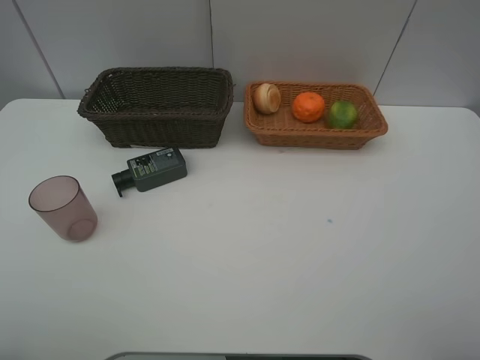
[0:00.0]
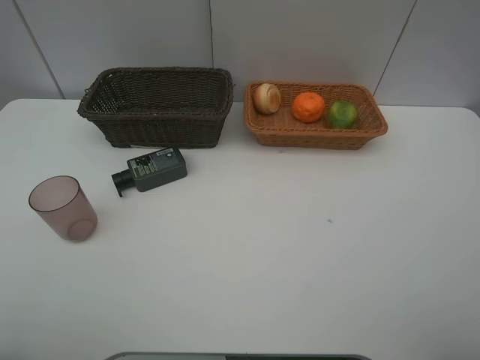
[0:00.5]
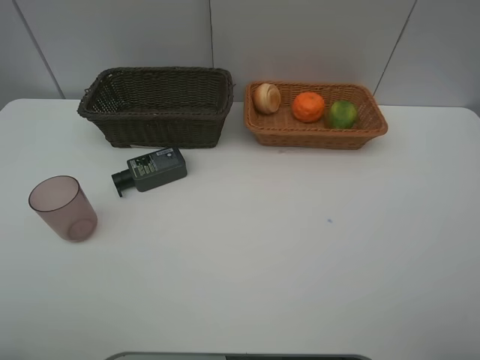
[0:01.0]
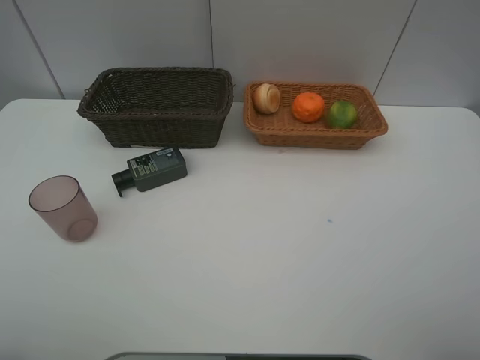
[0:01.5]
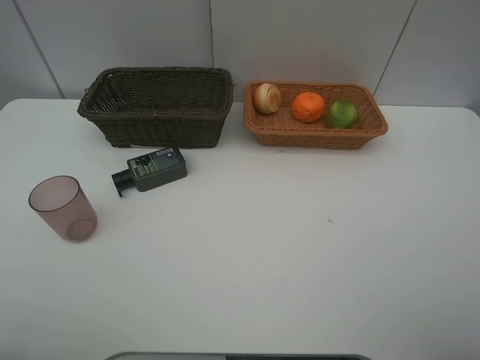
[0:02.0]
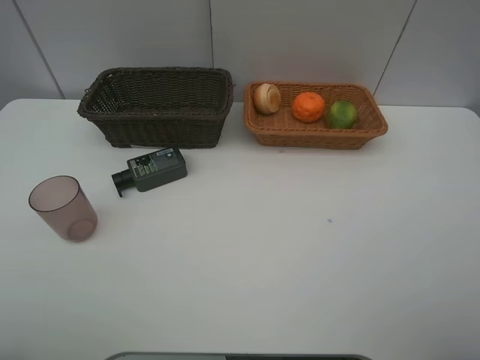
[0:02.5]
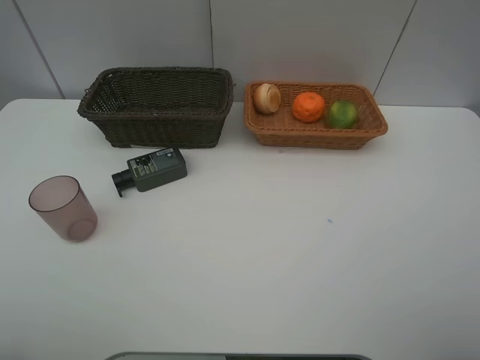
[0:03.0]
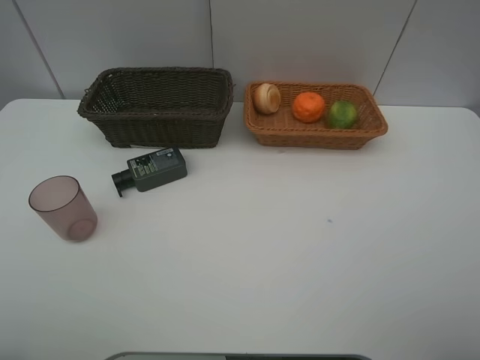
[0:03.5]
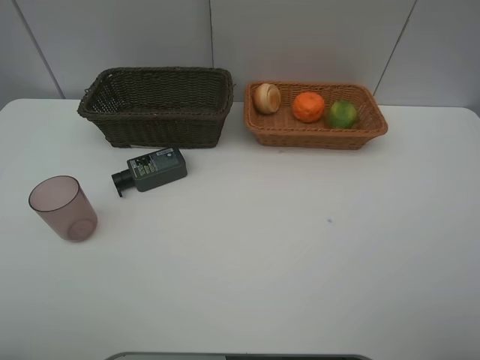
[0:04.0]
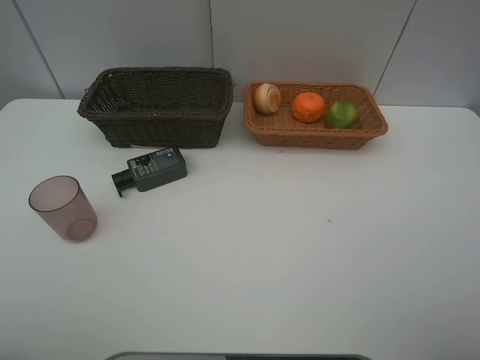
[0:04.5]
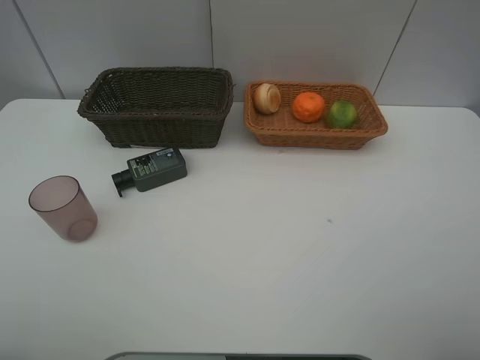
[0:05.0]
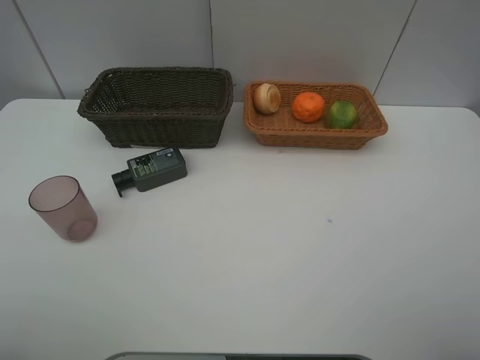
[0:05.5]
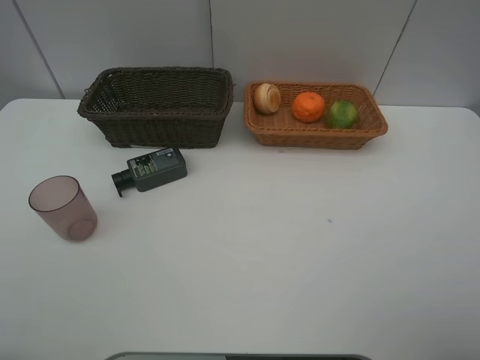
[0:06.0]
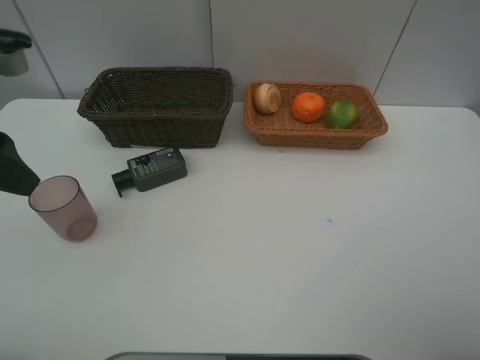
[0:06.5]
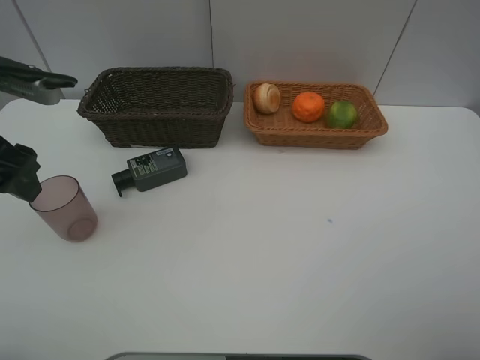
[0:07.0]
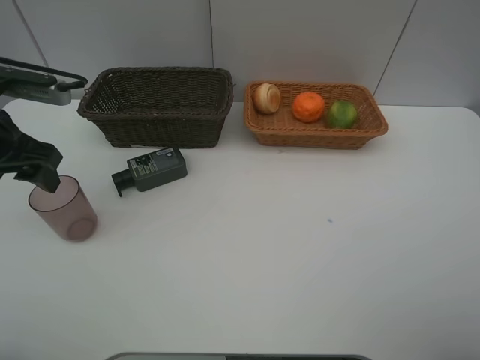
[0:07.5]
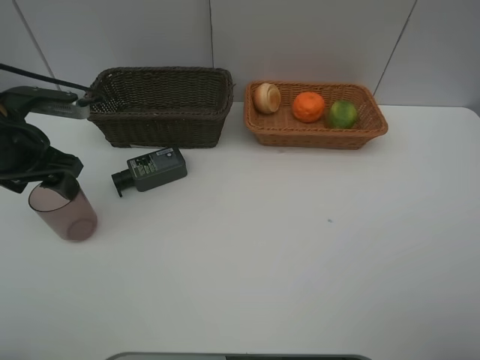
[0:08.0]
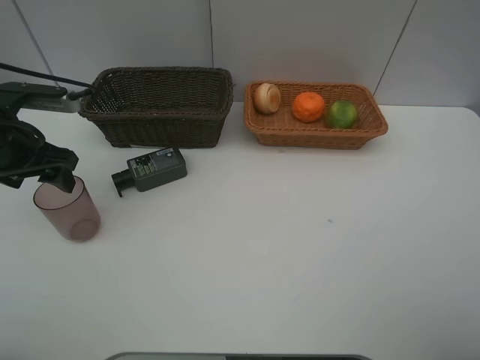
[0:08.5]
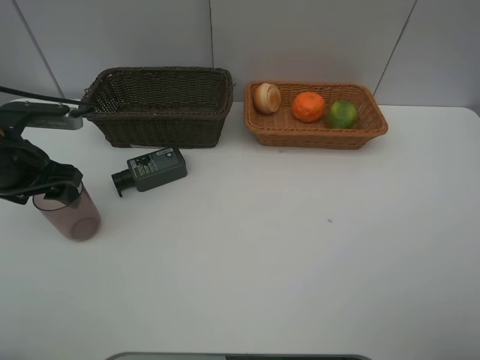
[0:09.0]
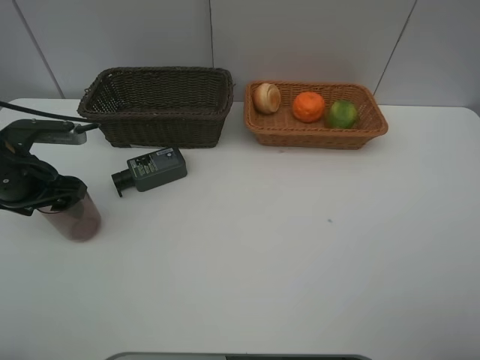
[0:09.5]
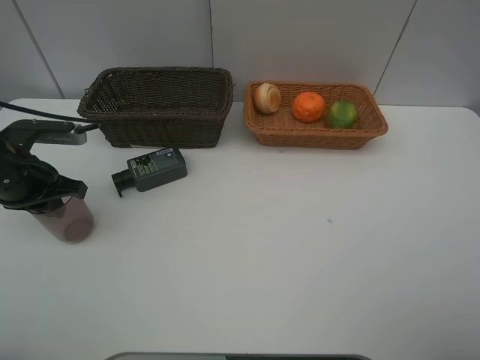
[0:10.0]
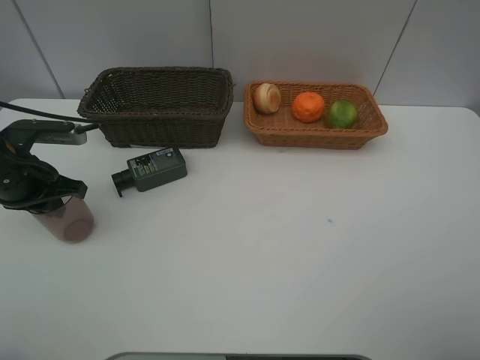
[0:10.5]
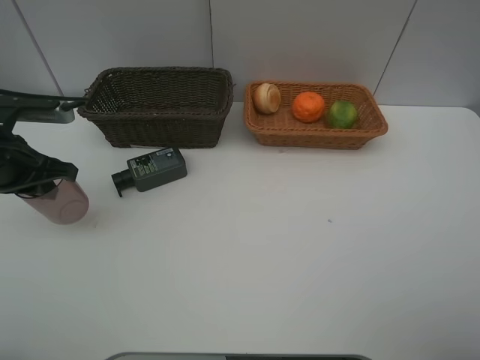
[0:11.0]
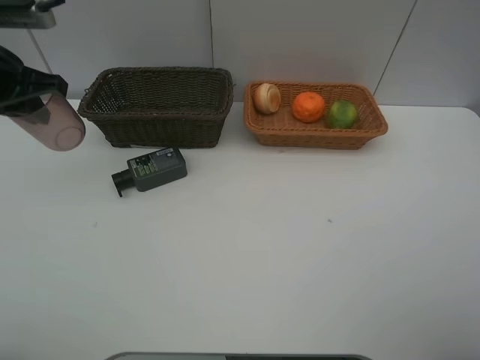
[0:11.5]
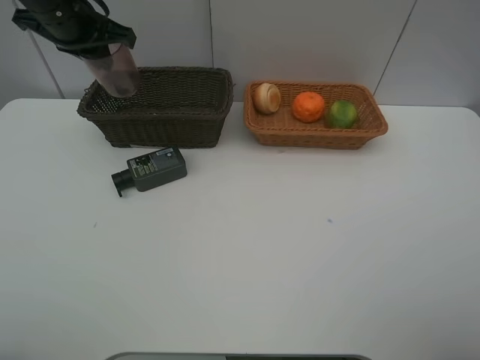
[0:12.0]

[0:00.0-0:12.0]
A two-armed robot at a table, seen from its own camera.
Task of the whole recording: place multiple objects separately in different baskets.
0:06.0 to 0:08.0: The left gripper goes roughly 20 cm forward and downward.
0:08.0 to 0:10.0: The left gripper moves downward, roughly 5 cm, and closes up.
0:10.0 to 0:12.0: The left gripper moves forward, upward and to the right, about 20 cm.

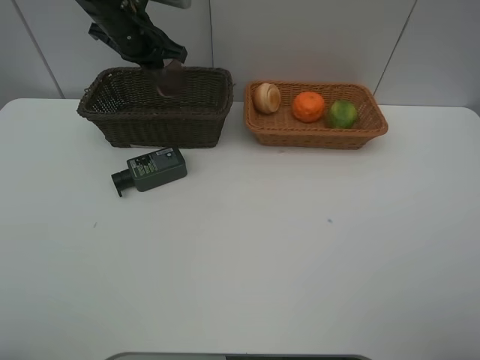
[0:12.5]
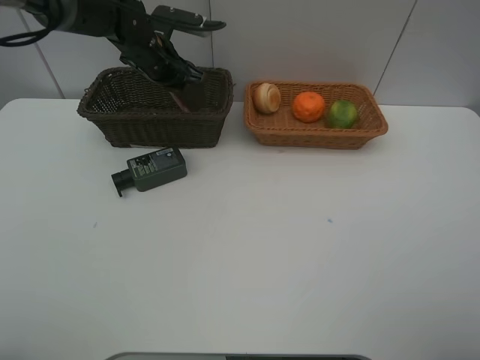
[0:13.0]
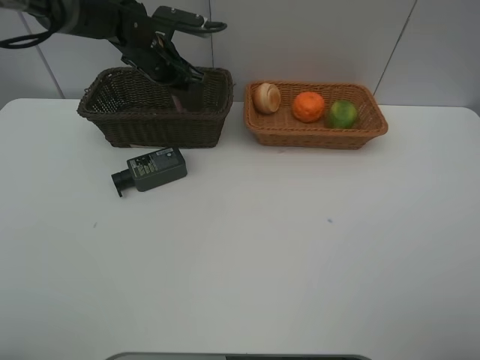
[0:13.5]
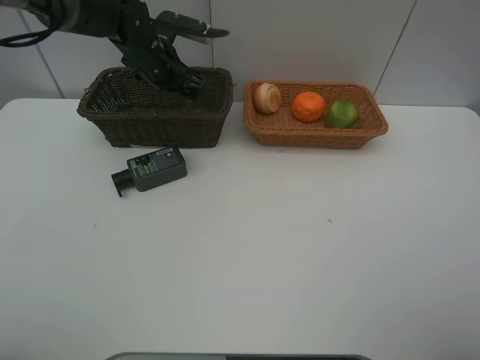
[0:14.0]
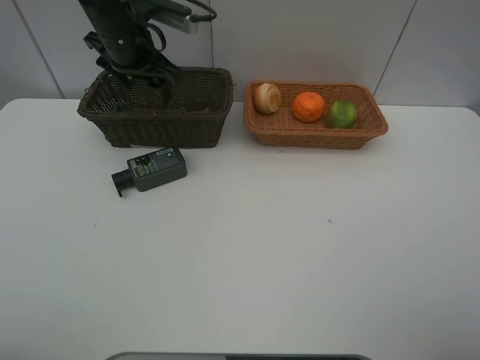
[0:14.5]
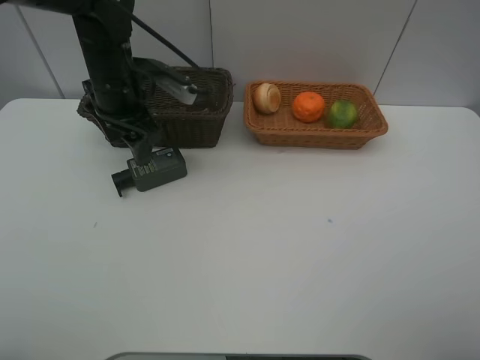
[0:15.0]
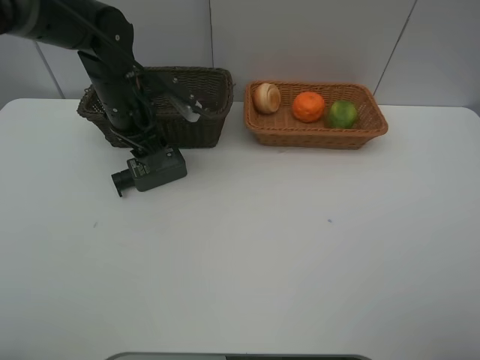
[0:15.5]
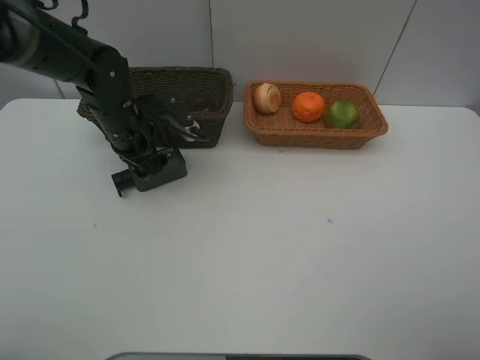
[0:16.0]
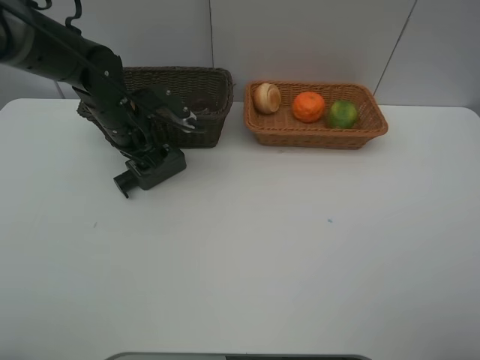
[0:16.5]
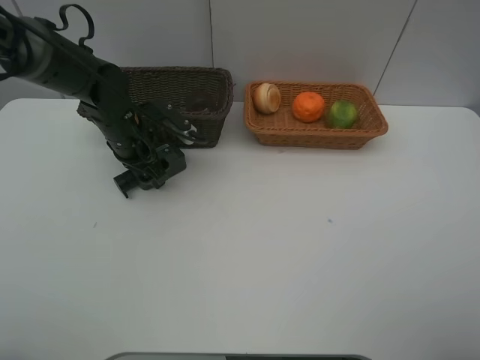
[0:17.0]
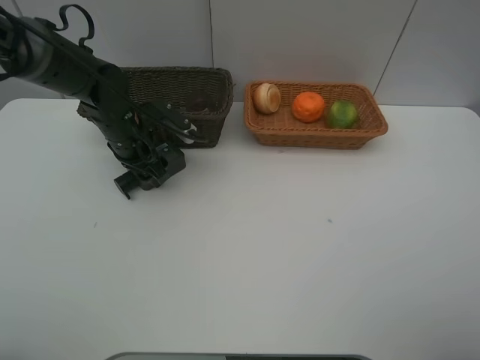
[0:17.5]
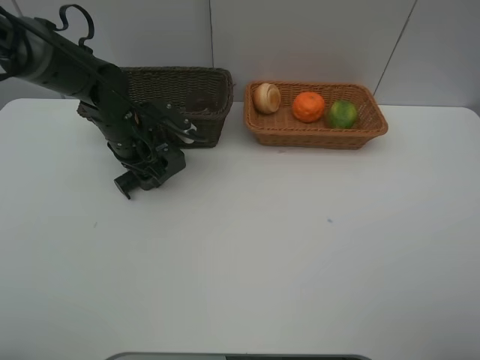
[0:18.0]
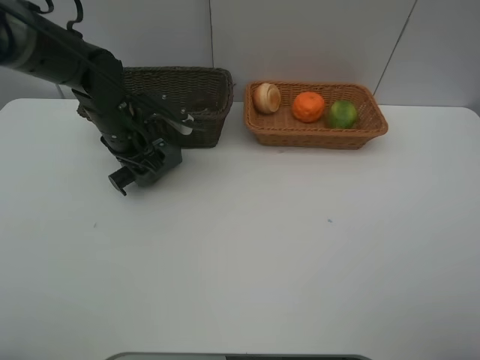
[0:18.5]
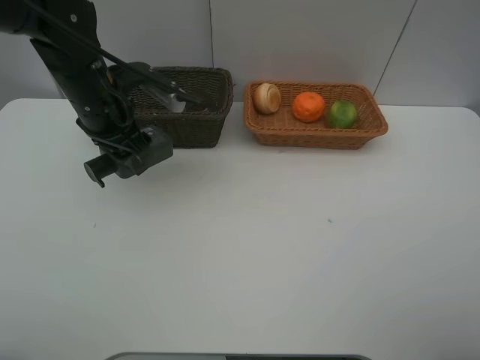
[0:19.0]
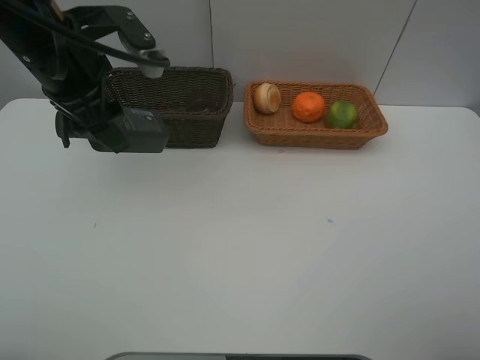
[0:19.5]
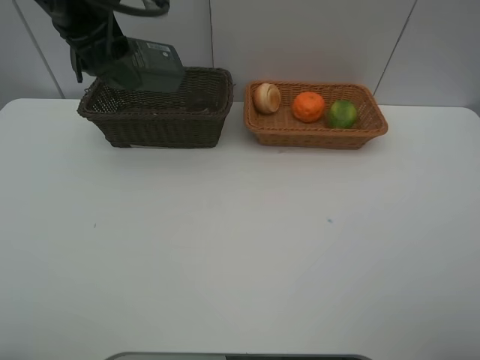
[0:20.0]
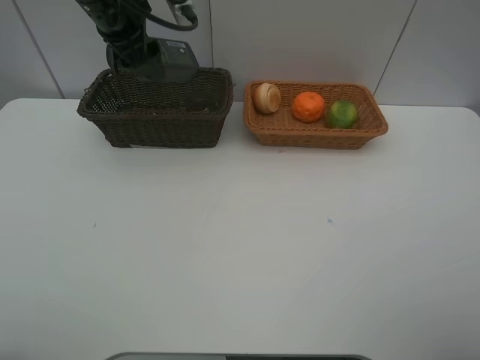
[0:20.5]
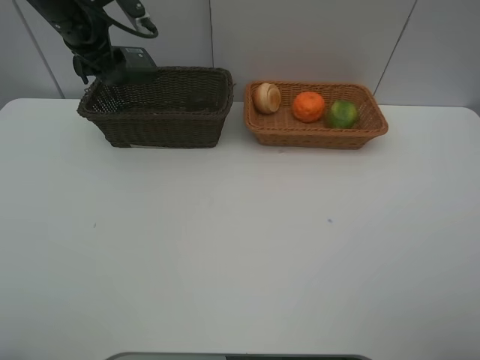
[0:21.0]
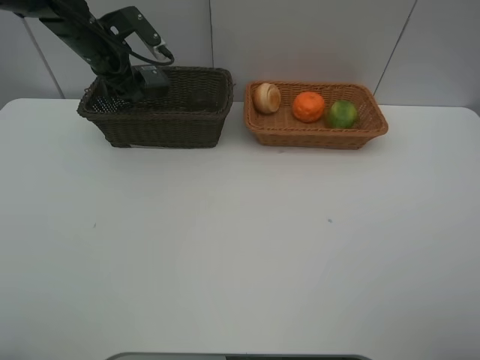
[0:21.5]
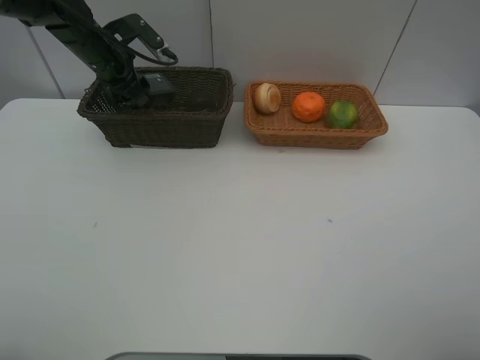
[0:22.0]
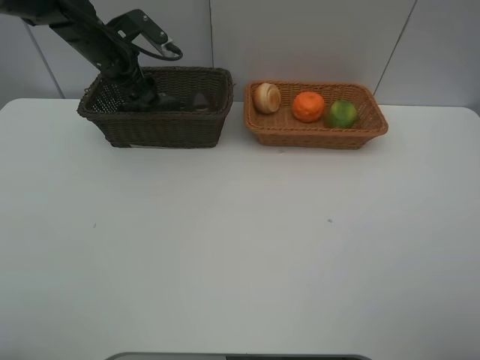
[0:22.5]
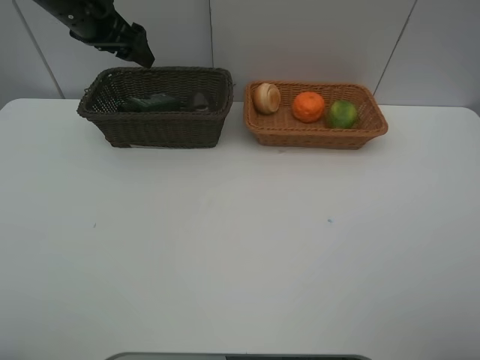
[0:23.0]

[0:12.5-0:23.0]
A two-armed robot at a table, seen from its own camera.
Task of the whole recording: place multiple objects separately in different baskets.
0:12.5 to 0:14.5: The left gripper opens up.
0:14.5 to 0:16.5: The left gripper travels downward by approximately 10 cm.
0:16.5 to 0:19.0: The left gripper moves upward, approximately 5 cm.
0:19.0 to 0:21.0: The left gripper is displaced forward and to the left by some 15 cm.
0:21.0 to 0:23.0: The left gripper moves about 5 cm downward and comes back.

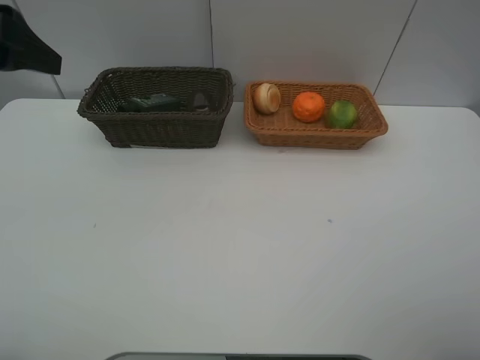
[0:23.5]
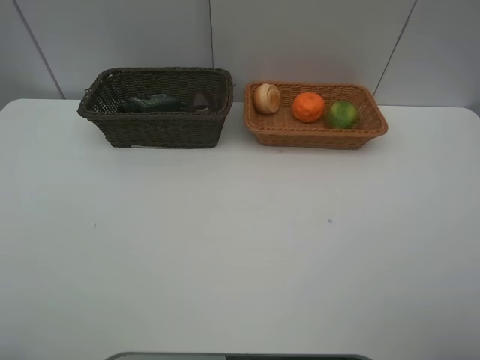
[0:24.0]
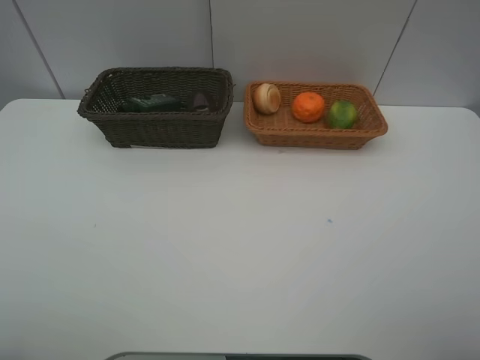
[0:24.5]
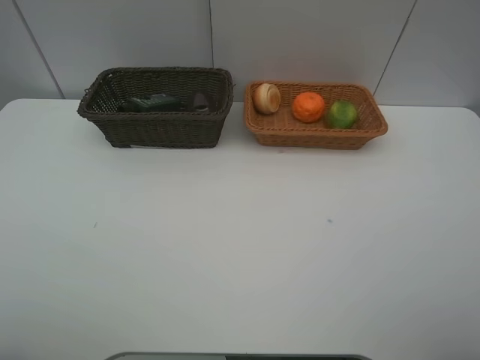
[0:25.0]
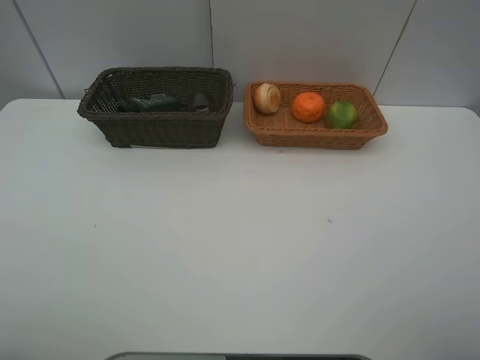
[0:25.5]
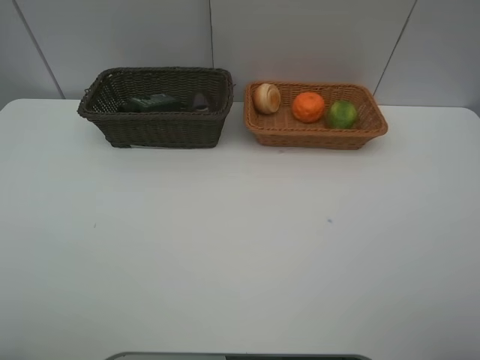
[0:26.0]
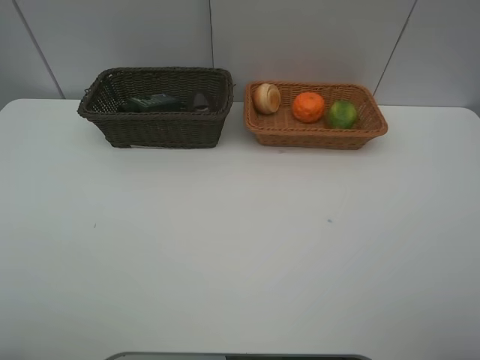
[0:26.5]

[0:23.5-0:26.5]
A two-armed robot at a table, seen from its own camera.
Task of the whole recording: place multiple objects separately in different baskets.
0:23.5 to 0:25.0: The left gripper goes approximately 20 cm backward.
0:25.0 to 0:26.5: Both grippers stay put.
